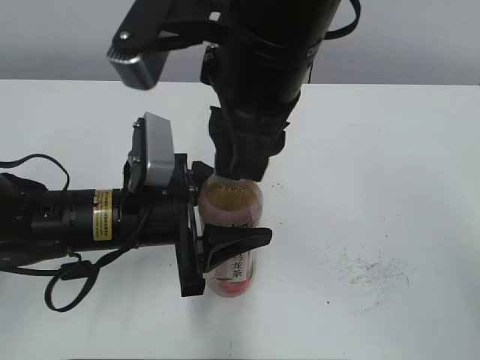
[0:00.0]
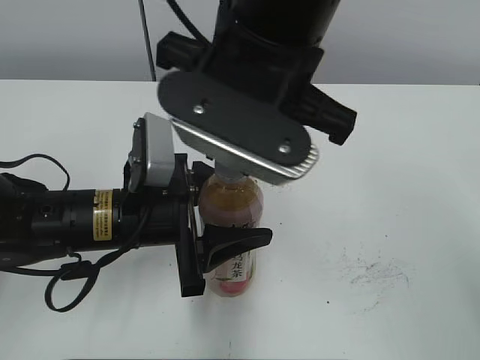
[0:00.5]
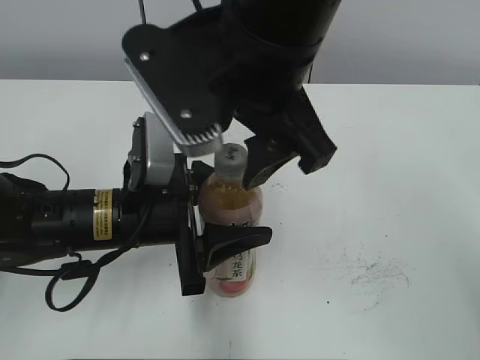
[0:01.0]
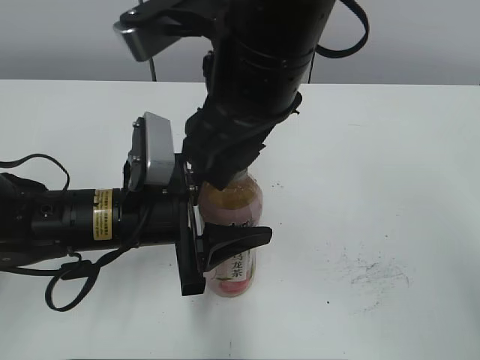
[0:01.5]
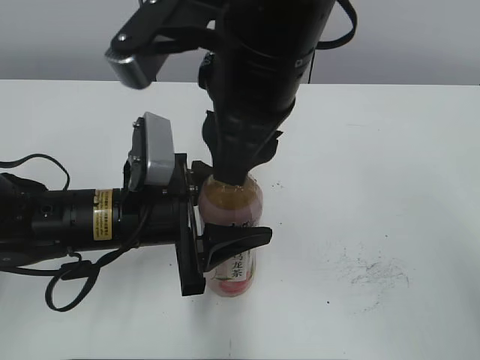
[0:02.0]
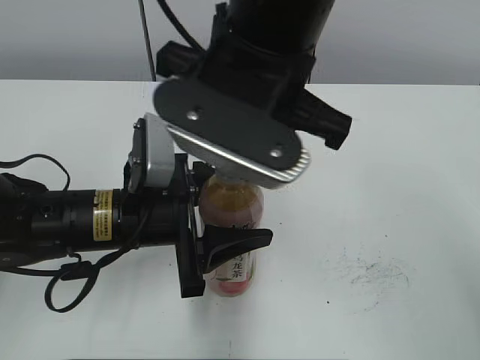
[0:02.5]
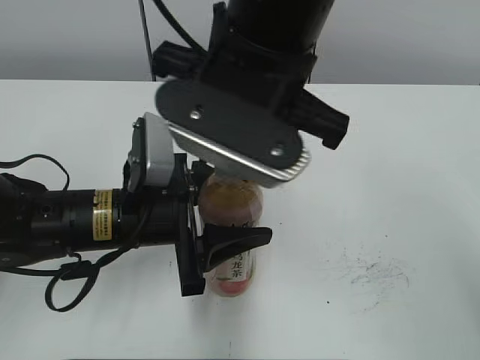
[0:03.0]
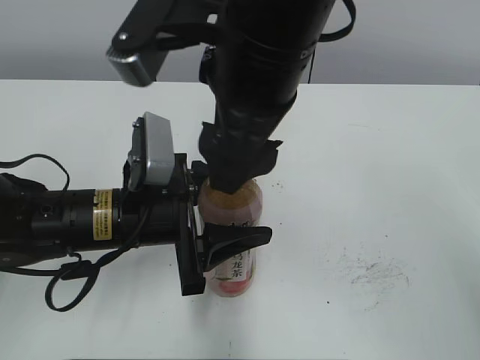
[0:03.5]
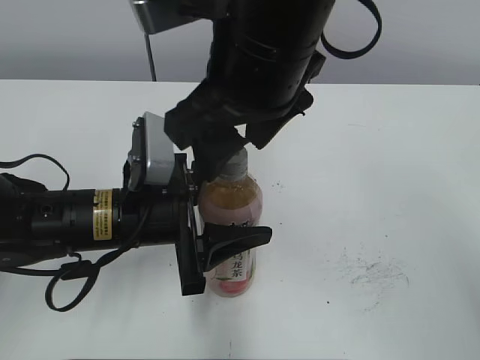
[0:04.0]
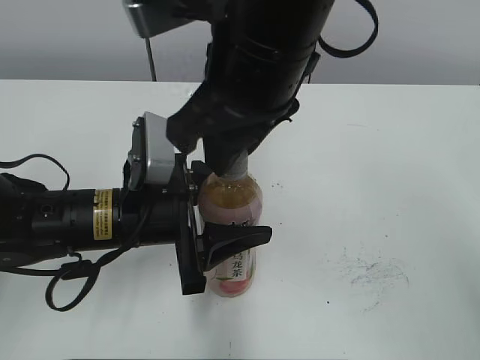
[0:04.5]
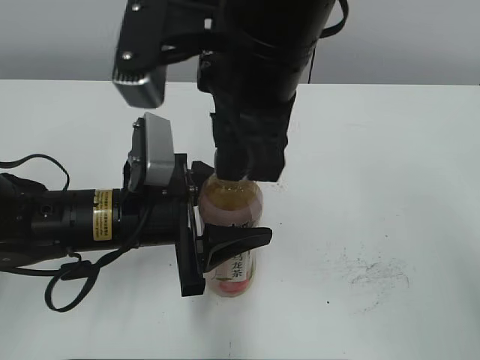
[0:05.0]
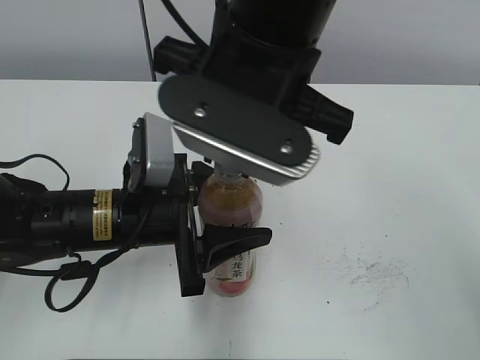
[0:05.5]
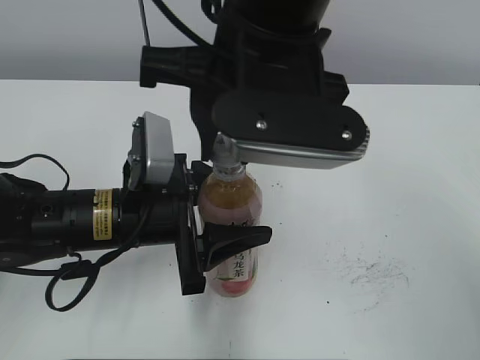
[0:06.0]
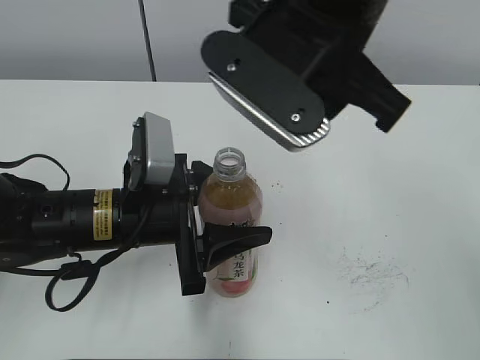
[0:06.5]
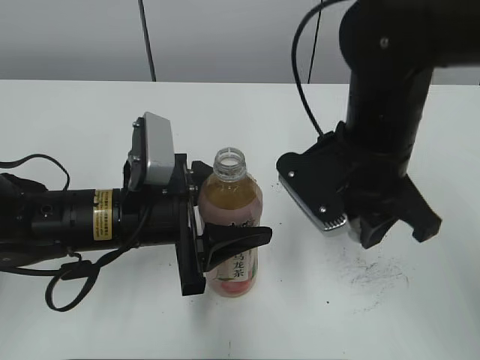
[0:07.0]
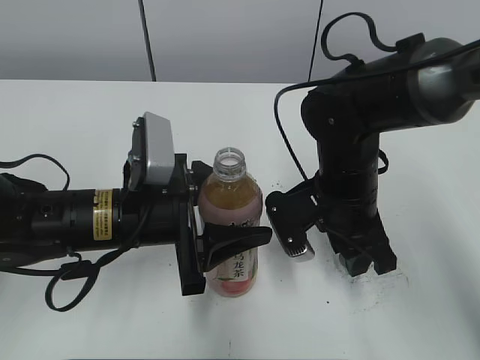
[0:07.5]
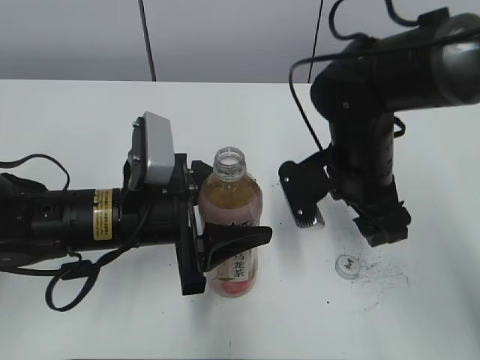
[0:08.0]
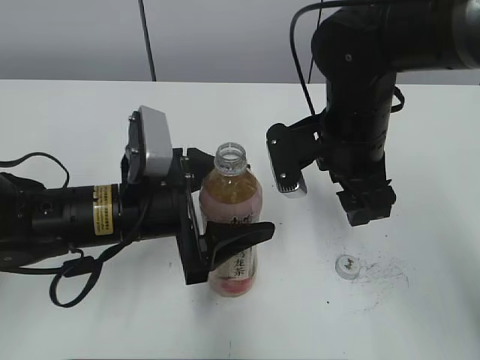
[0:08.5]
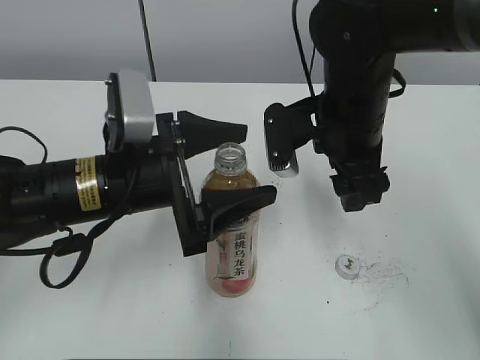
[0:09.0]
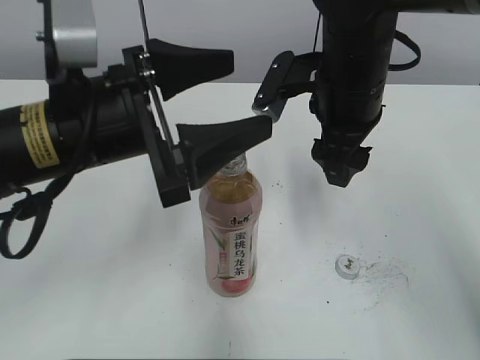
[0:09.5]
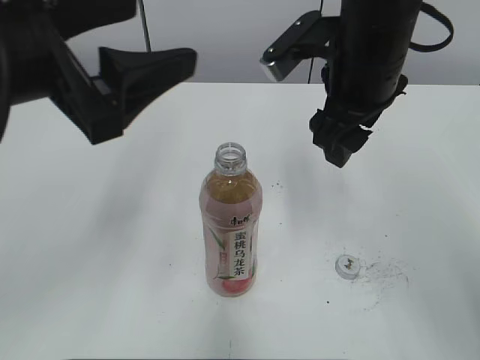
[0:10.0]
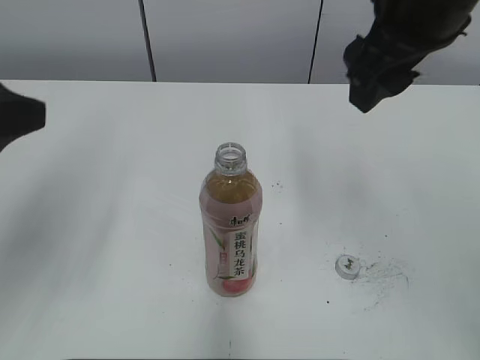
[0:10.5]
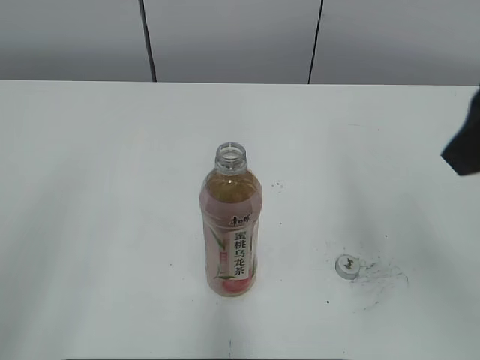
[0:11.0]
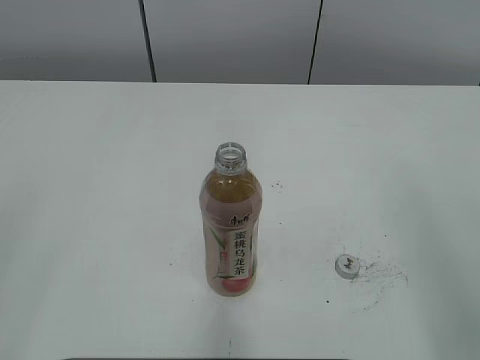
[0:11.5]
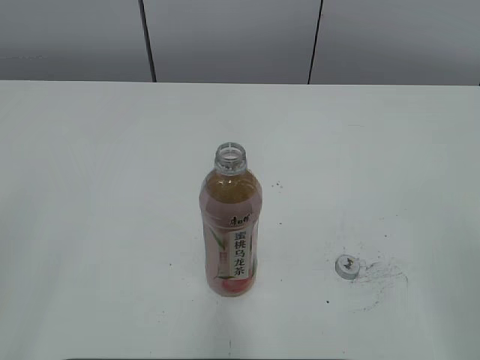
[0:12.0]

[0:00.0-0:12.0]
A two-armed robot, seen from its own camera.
Step, 0:06.5 to 0:07.5: Place the bottle cap on the right.
0:00.0 to 0:02.0: The right gripper opens, then closes again.
0:02.0 to 0:04.0: The right gripper opens its fingers.
0:04.0 to 0:06.0: The right gripper closes its fingers.
0:06.0 to 0:08.0: The right gripper is displaced downward and to the right by about 20 cm, and opens.
0:08.0 to 0:10.0: The left gripper moves upward, some 15 cm, and opens; the right gripper goes some 10 cm upward.
0:10.0 to 0:12.0: The right gripper goes approximately 35 cm backward and to the right. The left gripper shifts about 25 cm backward and to the left.

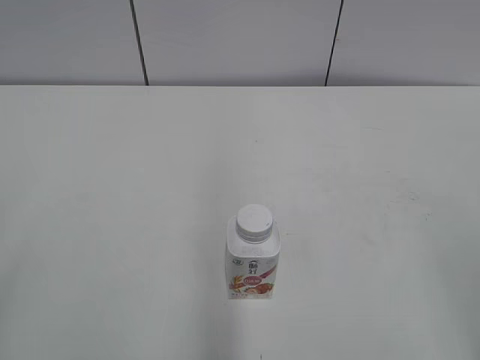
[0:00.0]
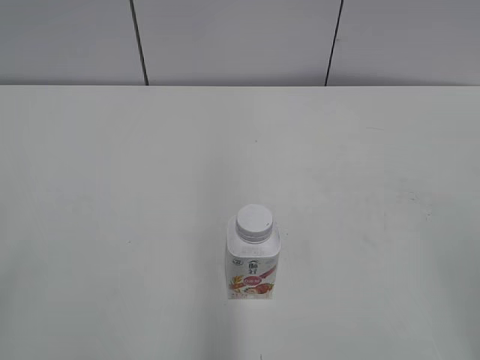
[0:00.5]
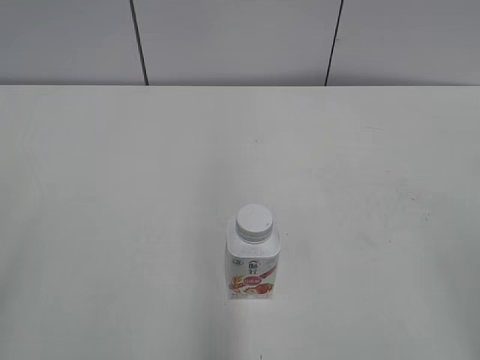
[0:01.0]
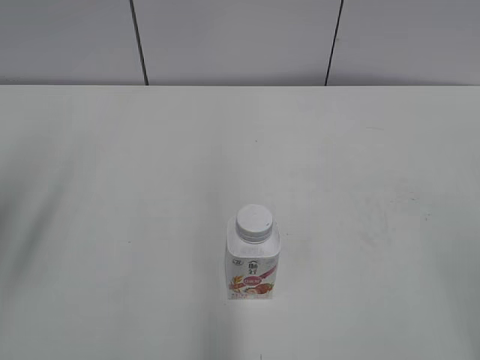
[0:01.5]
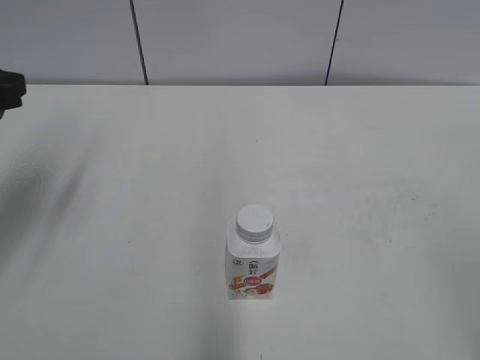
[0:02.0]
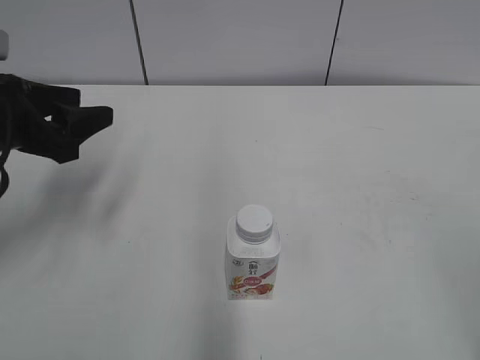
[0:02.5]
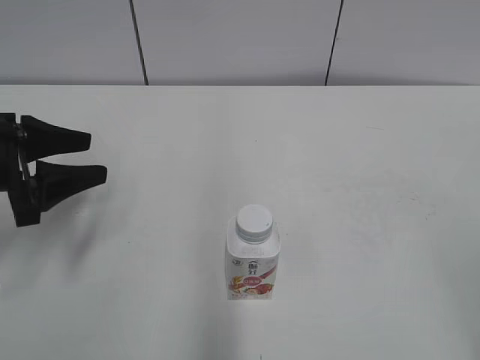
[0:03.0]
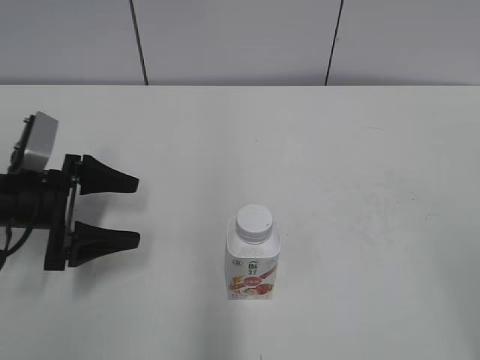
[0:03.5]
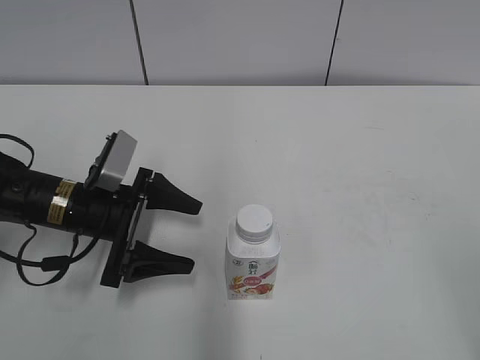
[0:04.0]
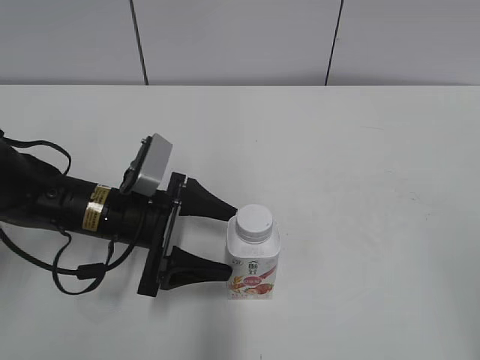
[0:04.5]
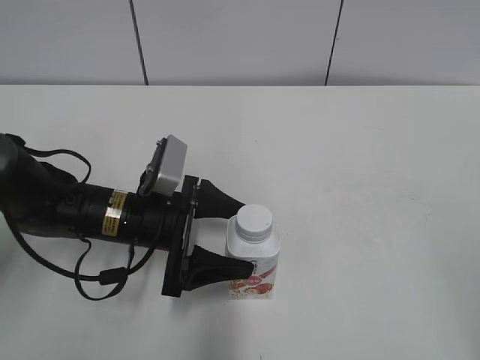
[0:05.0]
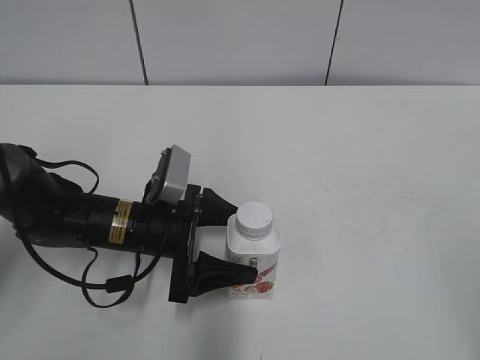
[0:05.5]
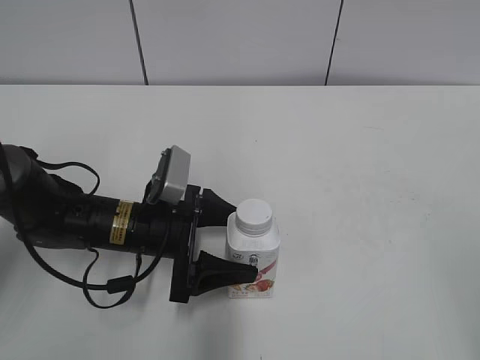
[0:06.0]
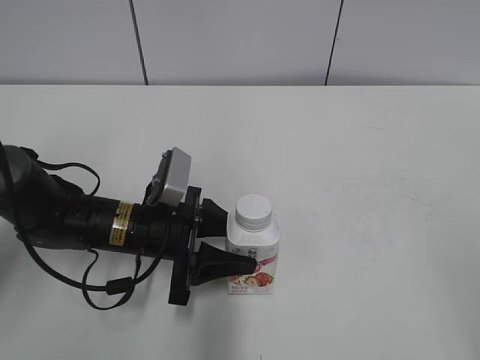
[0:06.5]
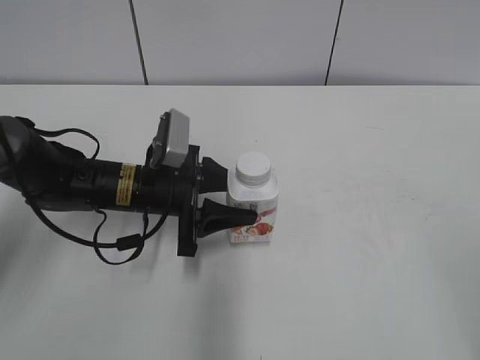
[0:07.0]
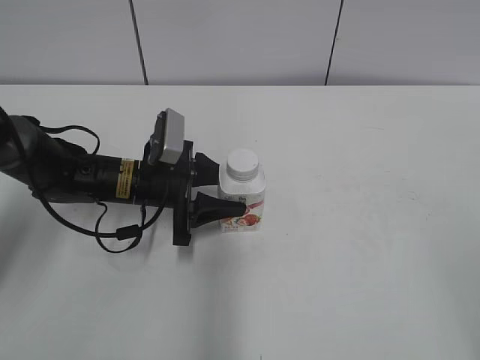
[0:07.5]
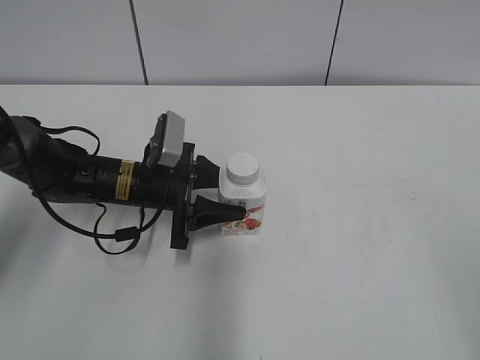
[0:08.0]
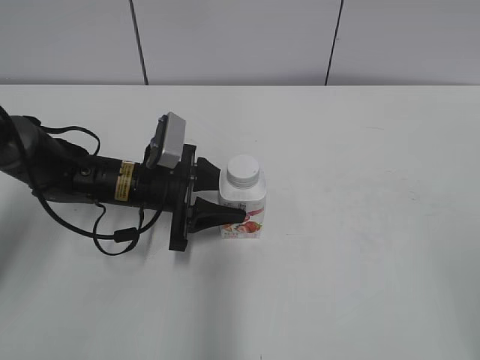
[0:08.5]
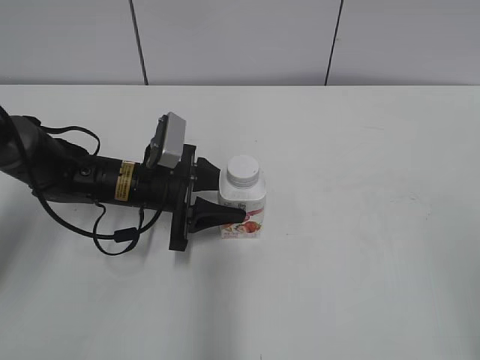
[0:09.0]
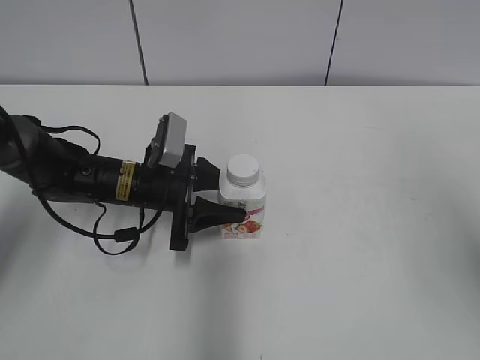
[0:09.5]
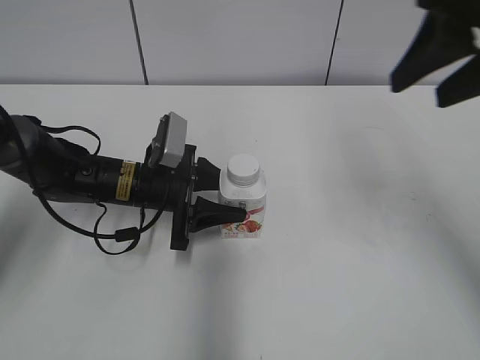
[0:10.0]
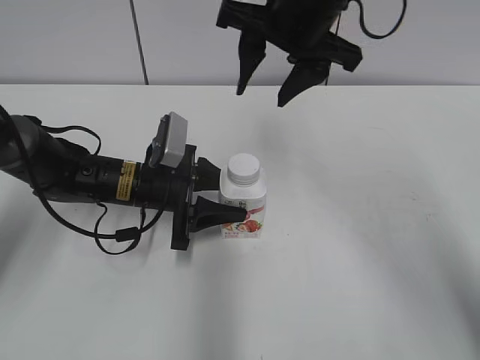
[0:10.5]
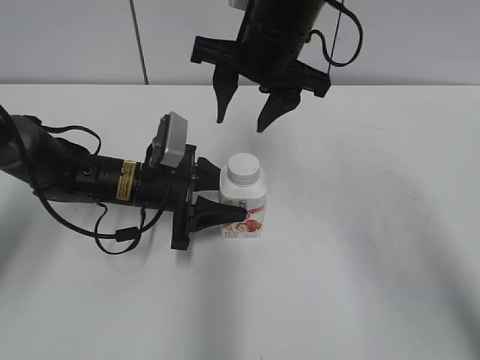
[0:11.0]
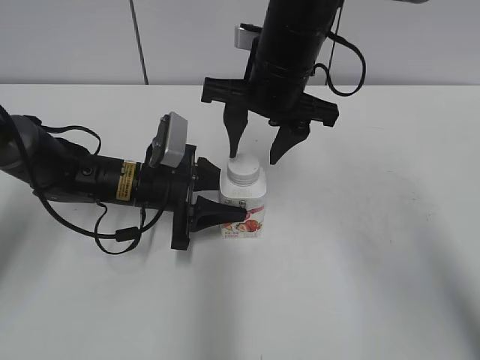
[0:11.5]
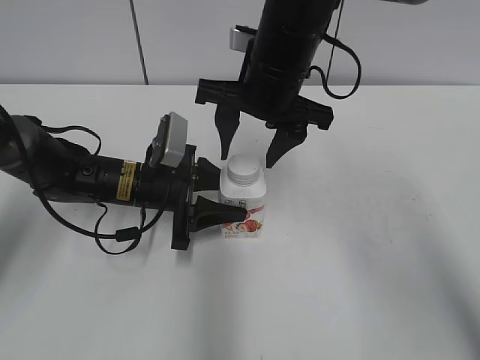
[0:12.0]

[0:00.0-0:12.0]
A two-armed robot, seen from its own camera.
Step, 0:00.0 to 0:06.0: Grab the Yili Changqing with the left hand.
Step, 0:06.5 to 0:07.5: Move the Yili Changqing from bottom to top.
0:02.0 to 0:04.0: The left gripper moves downward and to the right, about 20 cm, and opens its fingers.
0:04.0 to 0:06.0: The left gripper travels to the right by some 5 cm.
0:06.0 to 0:08.0: The left gripper shifts about 5 cm forward, and closes up.
0:08.0 to 0:10.0: The right gripper heads forward, covering some 25 cm.
0:10.0 to 0:12.0: The right gripper moves to the left, downward and forward, some 20 cm.

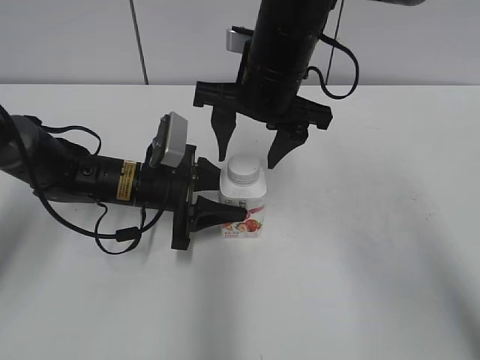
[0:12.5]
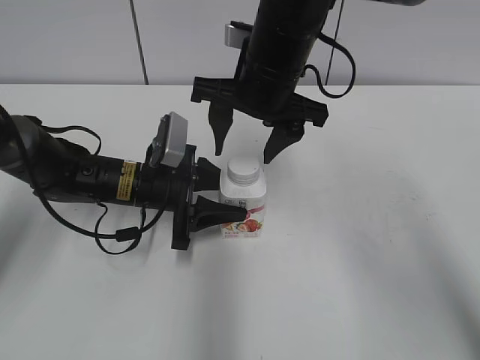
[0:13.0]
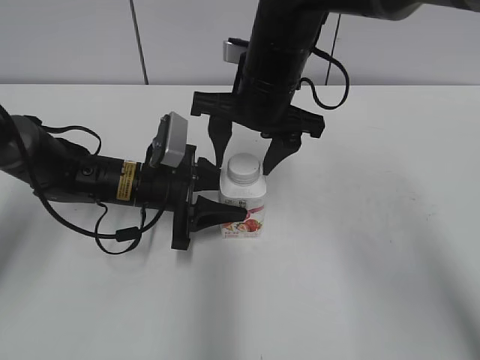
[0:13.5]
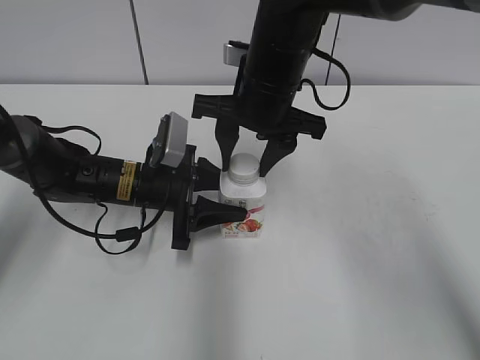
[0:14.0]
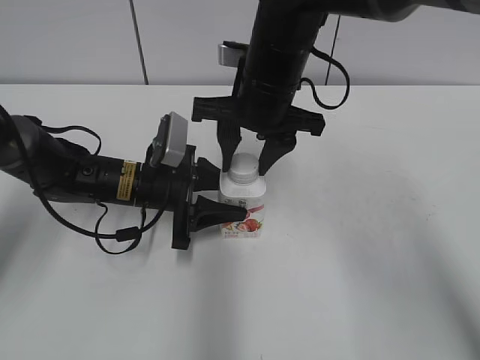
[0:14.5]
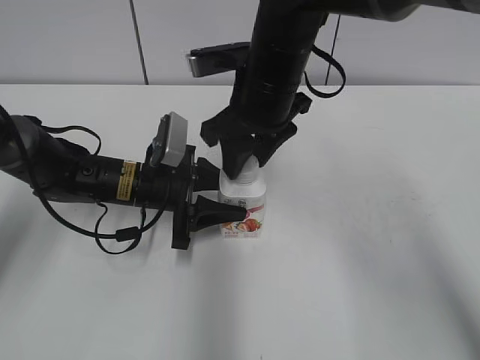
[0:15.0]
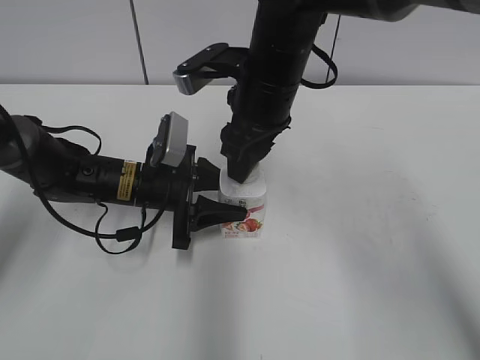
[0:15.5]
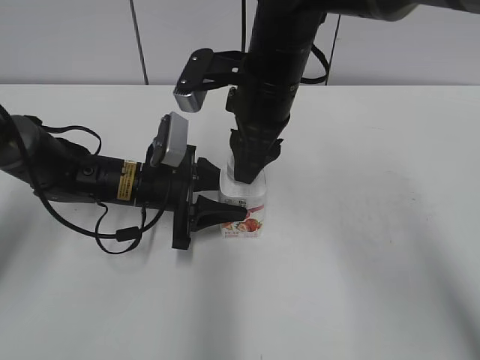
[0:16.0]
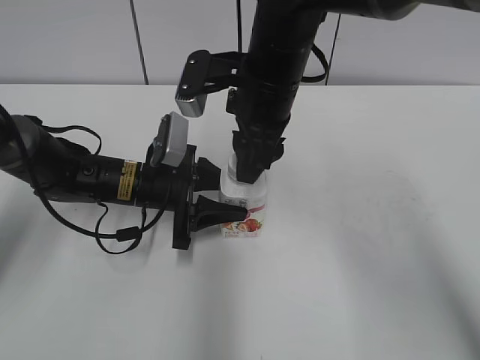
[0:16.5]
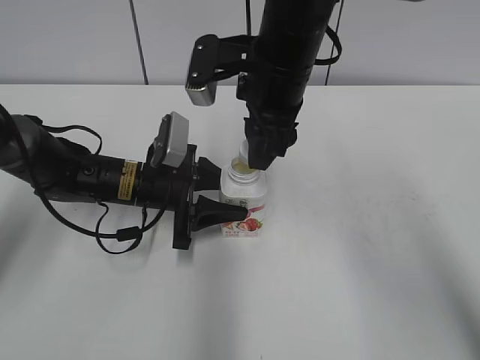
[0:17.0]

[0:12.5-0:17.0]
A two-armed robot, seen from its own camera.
0:12.5 to 0:14.5: The right gripper closes up.
